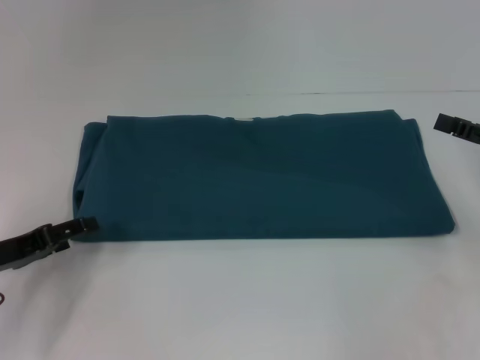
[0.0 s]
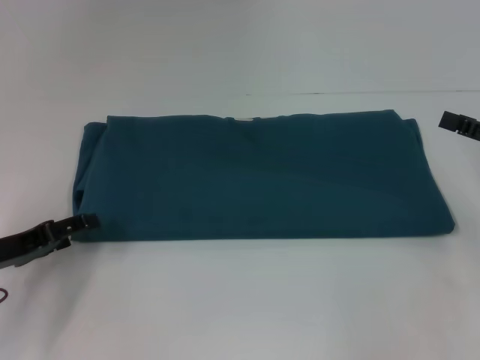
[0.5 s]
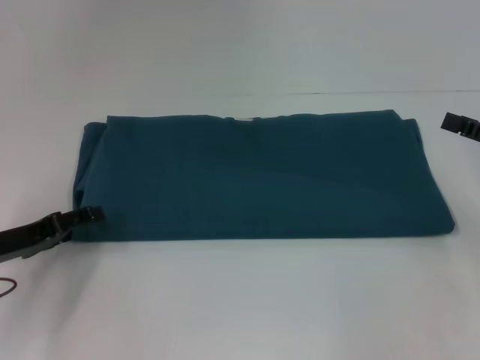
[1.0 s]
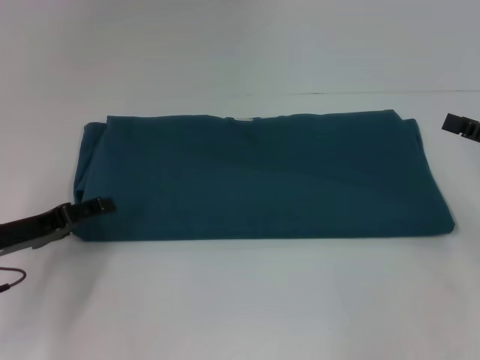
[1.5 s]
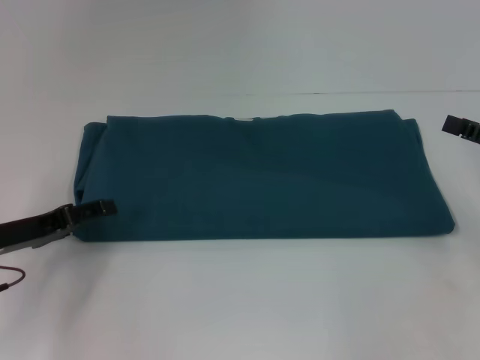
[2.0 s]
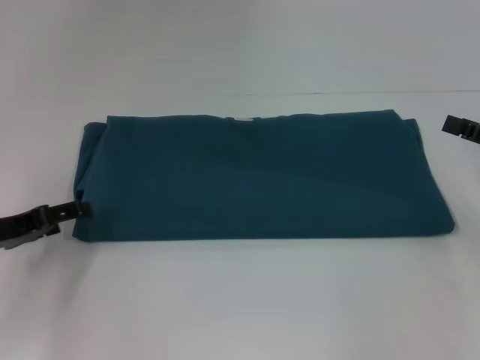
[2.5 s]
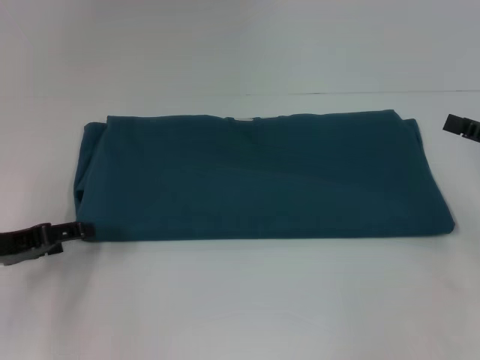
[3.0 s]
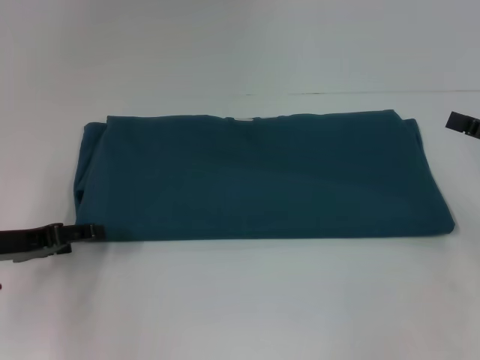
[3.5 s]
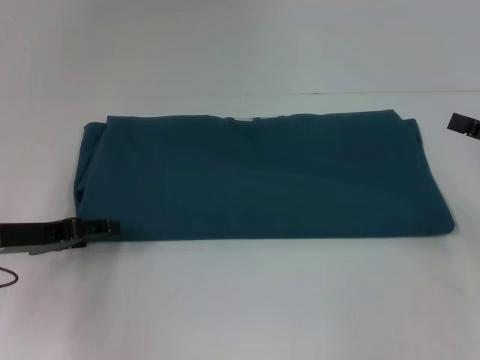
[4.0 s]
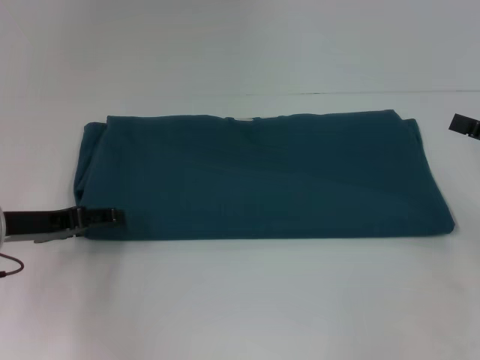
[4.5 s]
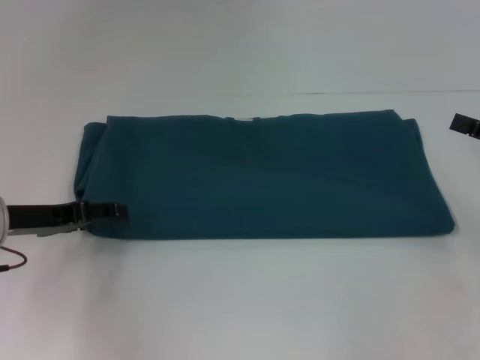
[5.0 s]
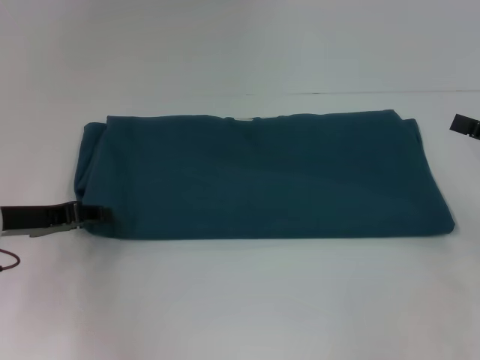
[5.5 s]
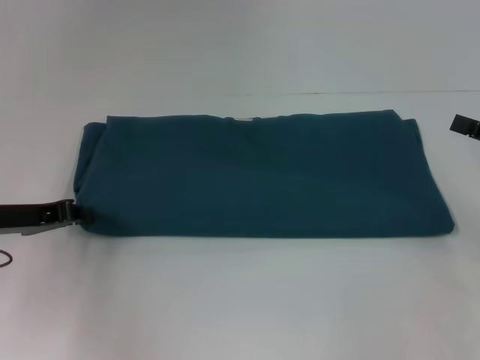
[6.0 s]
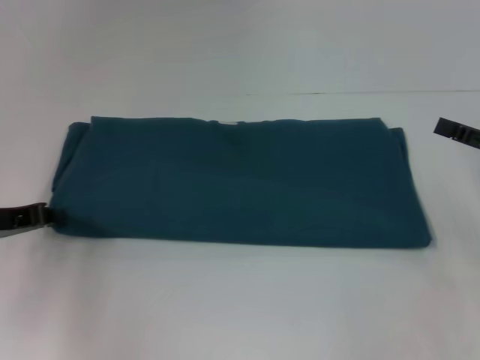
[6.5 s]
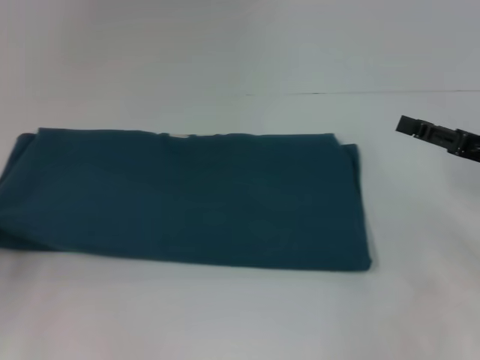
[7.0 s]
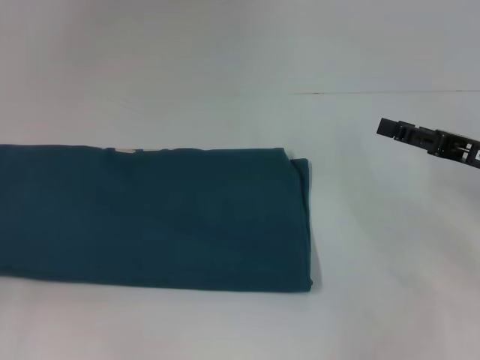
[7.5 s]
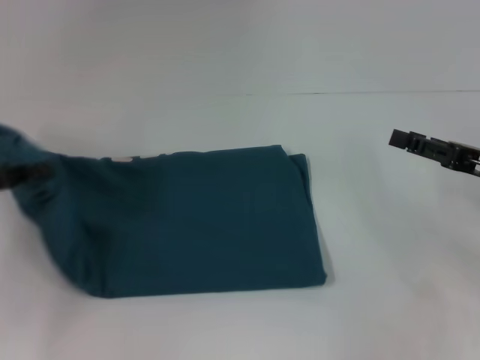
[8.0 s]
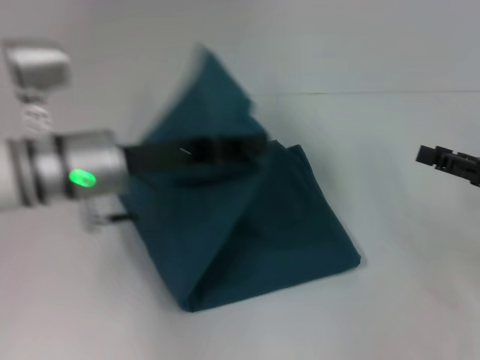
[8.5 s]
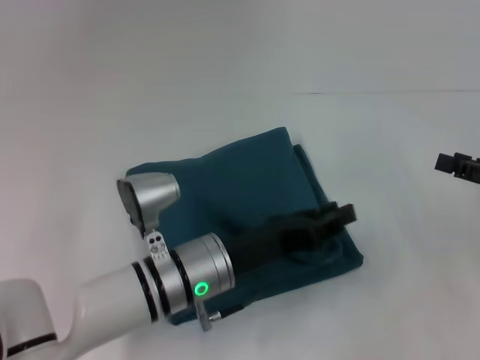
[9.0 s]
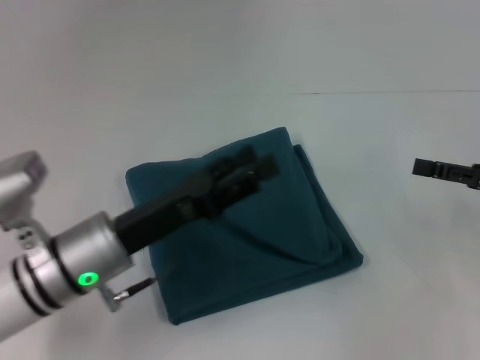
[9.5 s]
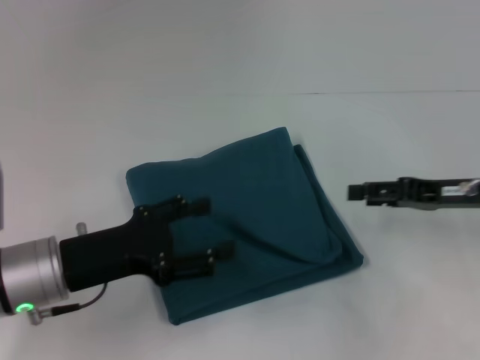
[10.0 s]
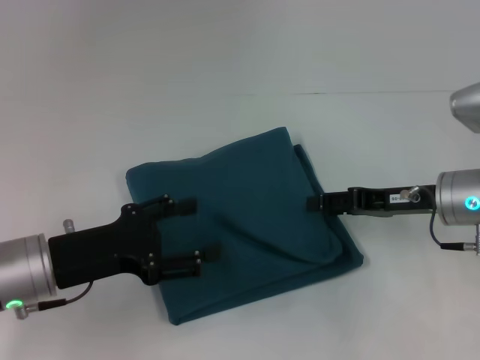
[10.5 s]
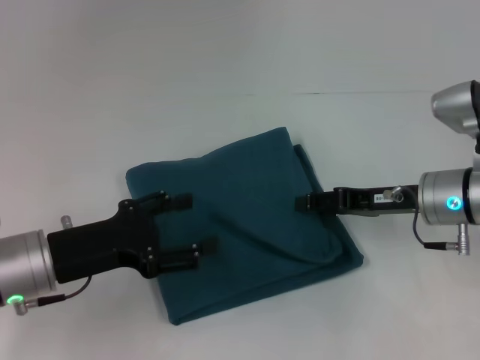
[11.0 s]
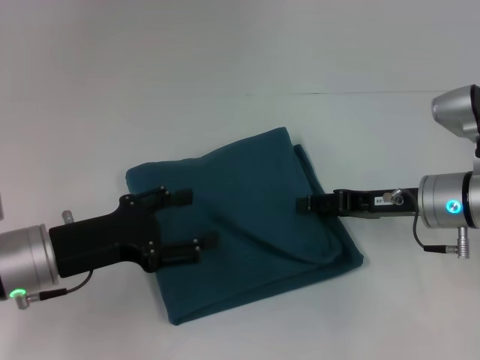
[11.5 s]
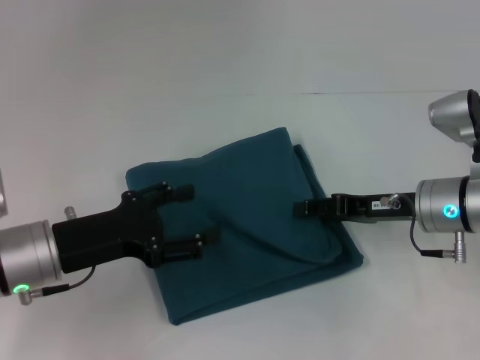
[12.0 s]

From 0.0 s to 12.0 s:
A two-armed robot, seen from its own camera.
Step, from 0.0 s to 9.0 s: Fold the clothes to the left.
From 0.0 s to 4.0 s: The grippers stay close to where they were, moving slightly.
From 4.0 s to 6.0 s: The left gripper closes its fingers.
From 6.0 s to 8.0 s: The left gripper travels upward by approximately 5 cm, and travels to the left and back again, roughly 15 cm each way; the right gripper moves to the left, about 5 cm.
From 8.0 s to 10.0 s: The left gripper travels to the right and downward by approximately 15 cm, and opens its fingers.
From 10.0 s to 12.0 s: The right gripper shifts roughly 5 cm to the left.

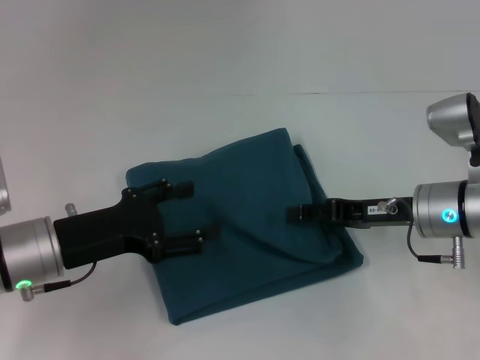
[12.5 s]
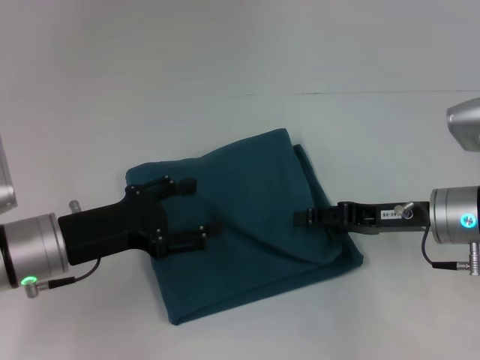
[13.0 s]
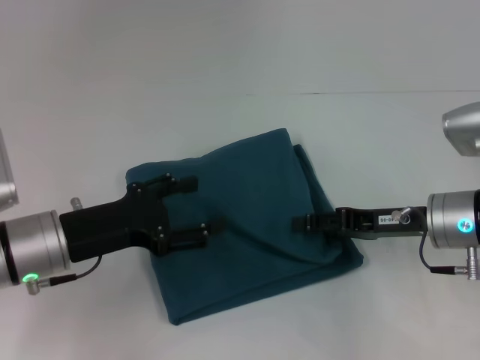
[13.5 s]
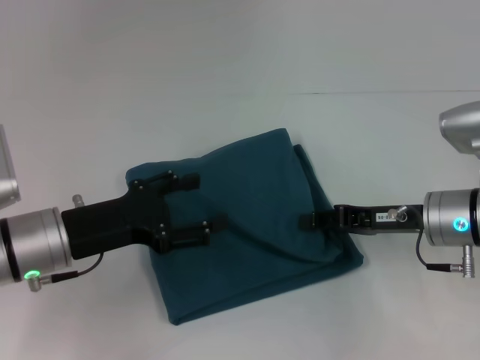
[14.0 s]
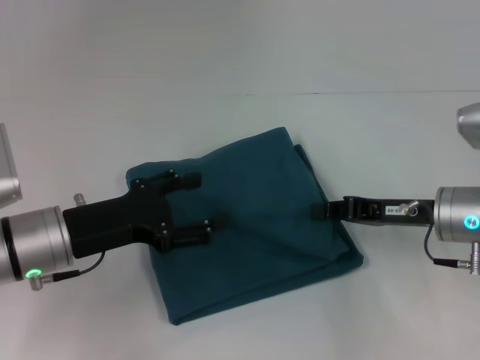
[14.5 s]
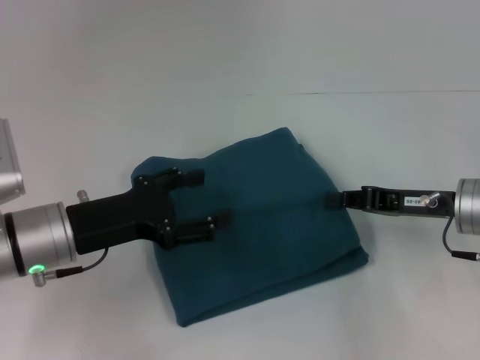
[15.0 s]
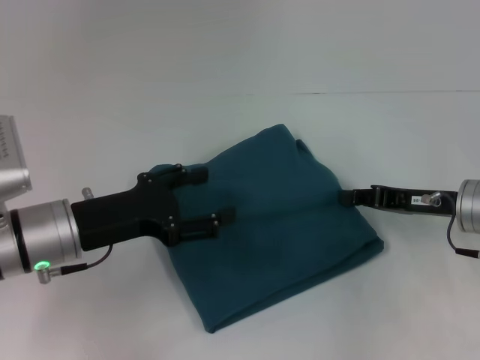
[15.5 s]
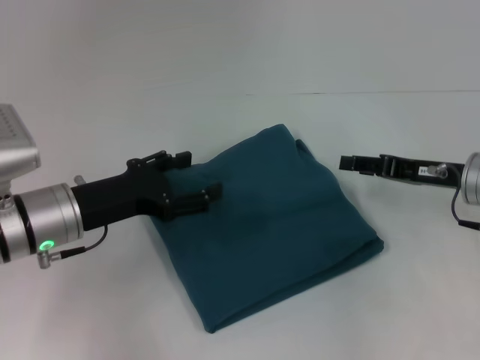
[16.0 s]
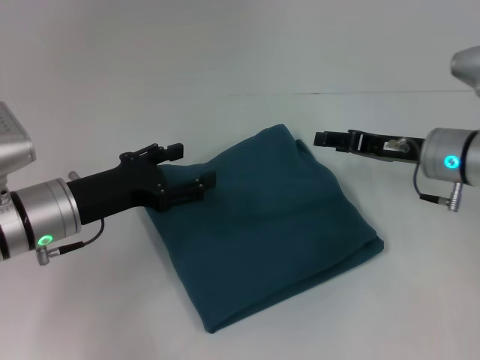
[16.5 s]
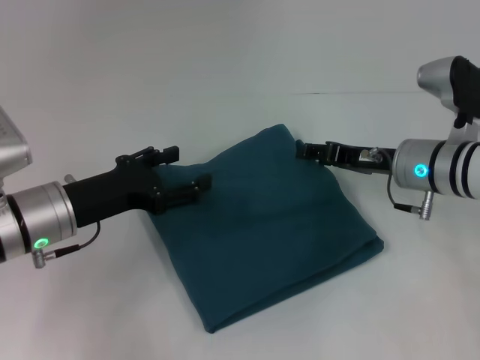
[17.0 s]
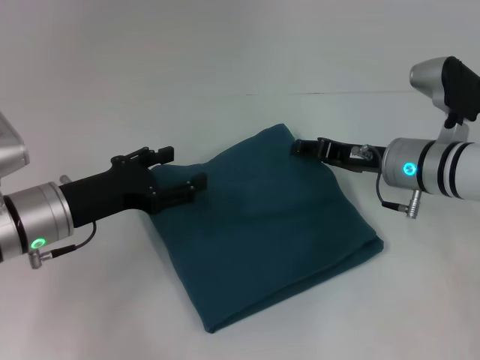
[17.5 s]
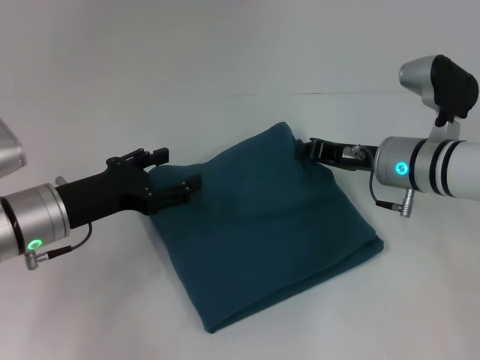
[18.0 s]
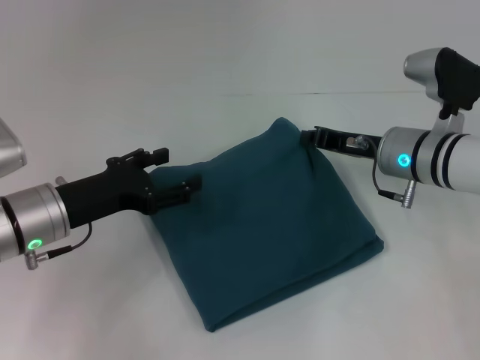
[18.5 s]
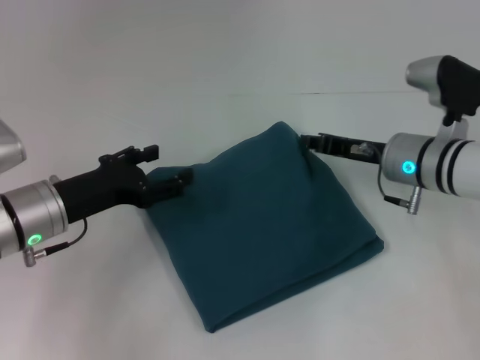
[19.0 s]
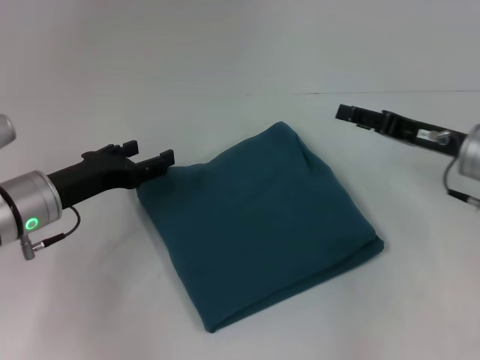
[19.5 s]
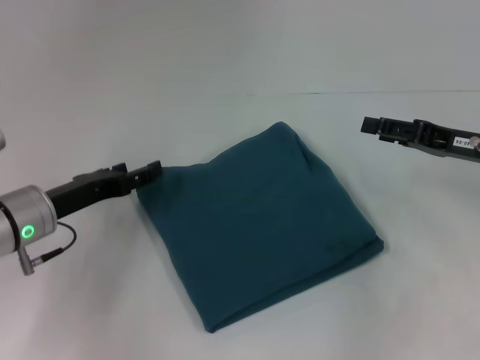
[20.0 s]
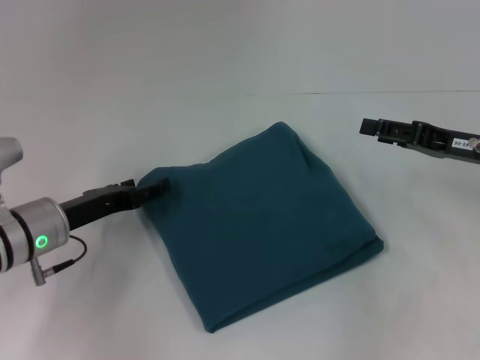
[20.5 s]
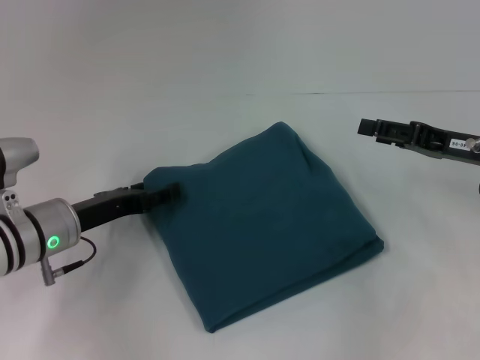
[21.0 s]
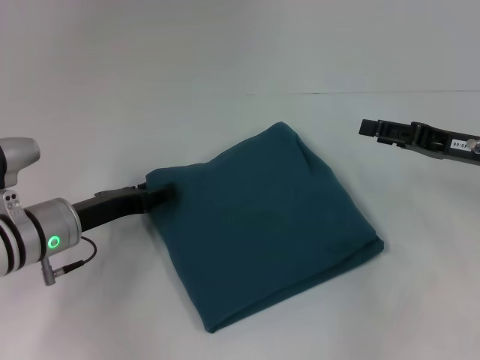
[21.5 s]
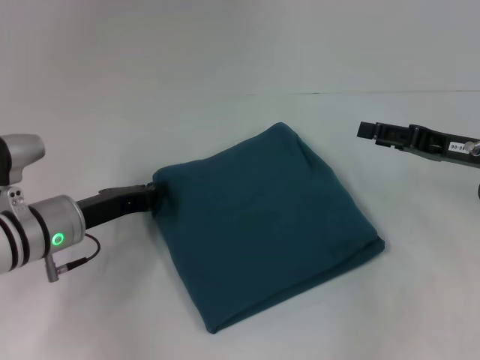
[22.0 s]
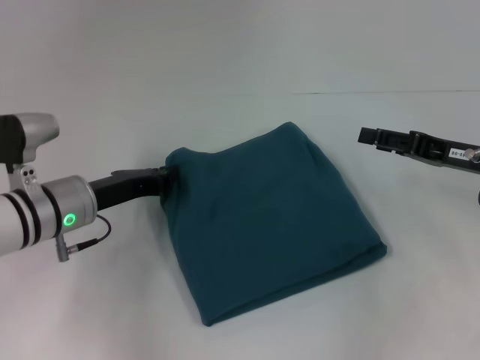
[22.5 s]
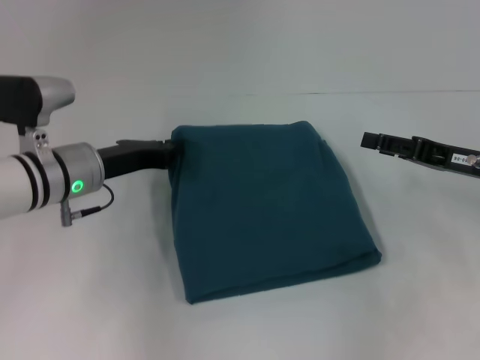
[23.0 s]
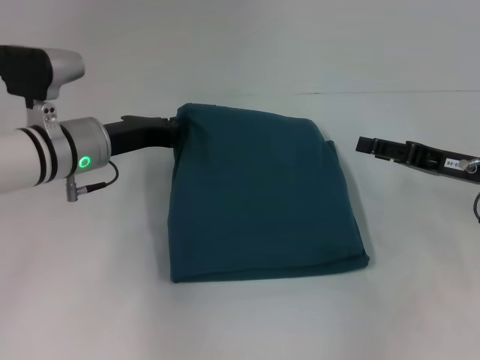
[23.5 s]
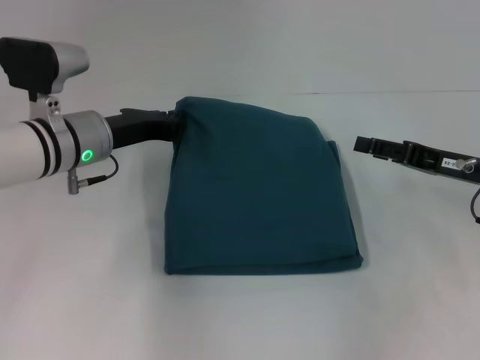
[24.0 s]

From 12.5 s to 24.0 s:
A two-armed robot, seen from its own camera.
From 12.5 s to 14.5 s: The right gripper closes.
From 14.5 s to 16.5 s: The right gripper goes about 5 cm forward, and opens up.
From 16.5 s to 18.5 s: The right gripper closes its fingers.
From 18.5 s to 20.0 s: The right gripper shifts some 10 cm to the right, and opens.
From 20.0 s to 22.0 s: The left gripper closes up.
From 22.0 s to 24.0 s: The left gripper is displaced forward and upward by roughly 10 cm.

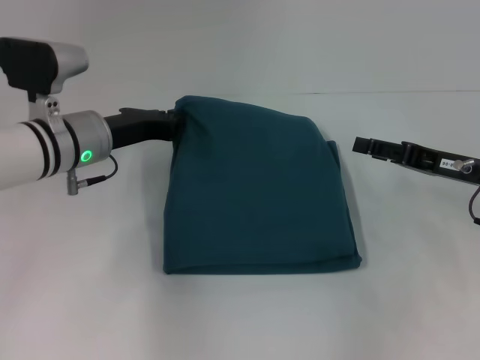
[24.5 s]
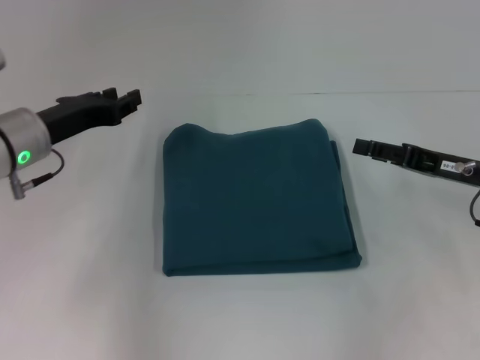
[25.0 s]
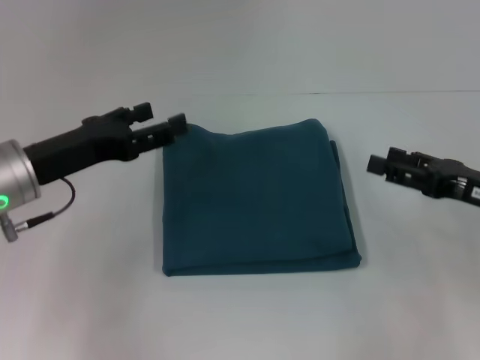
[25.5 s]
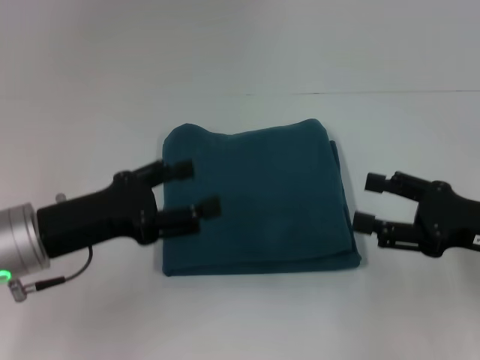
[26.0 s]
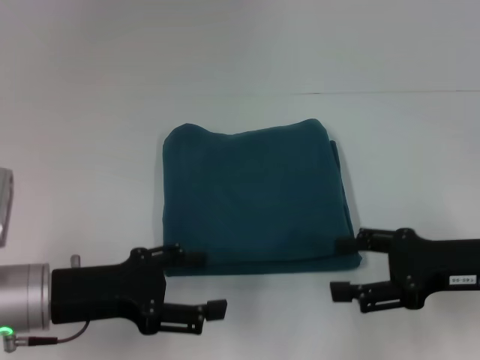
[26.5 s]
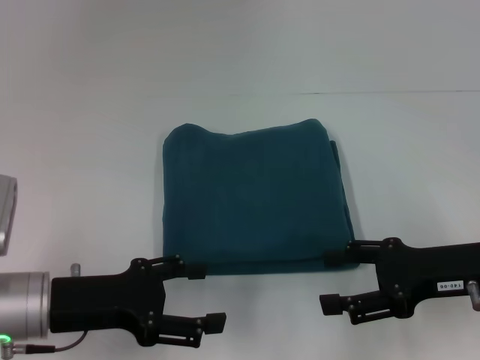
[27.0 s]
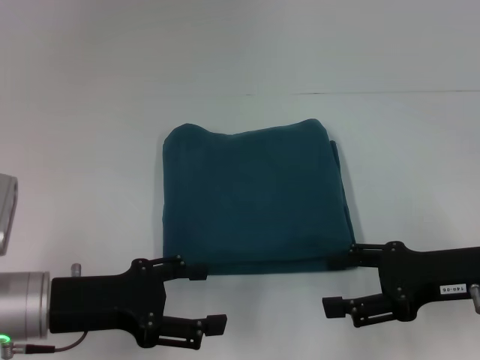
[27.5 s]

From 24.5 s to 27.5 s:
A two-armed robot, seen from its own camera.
From 24.5 s to 26.0 s: The left gripper moves backward, roughly 15 cm, and opens. Meanwhile the right gripper goes approximately 10 cm backward.
